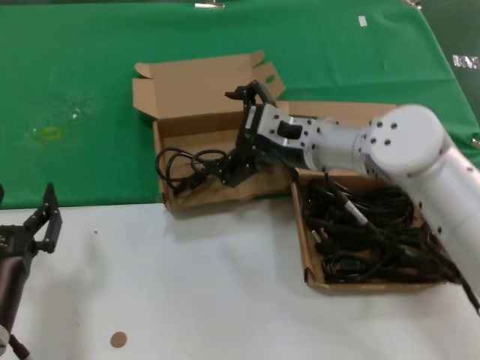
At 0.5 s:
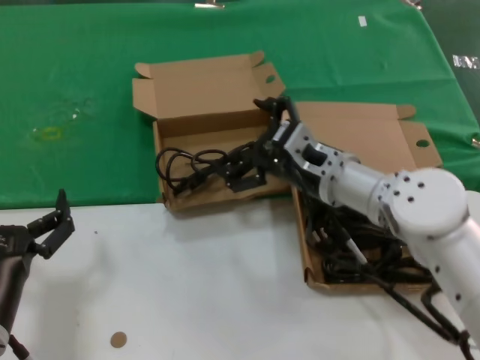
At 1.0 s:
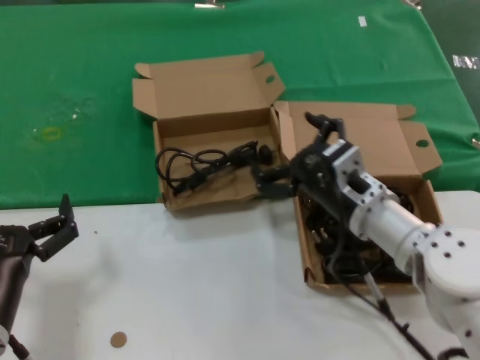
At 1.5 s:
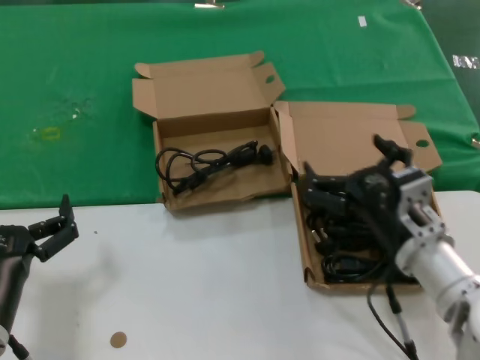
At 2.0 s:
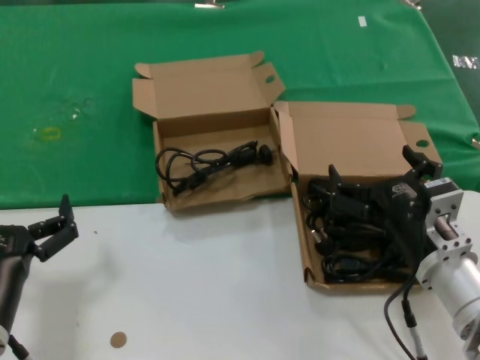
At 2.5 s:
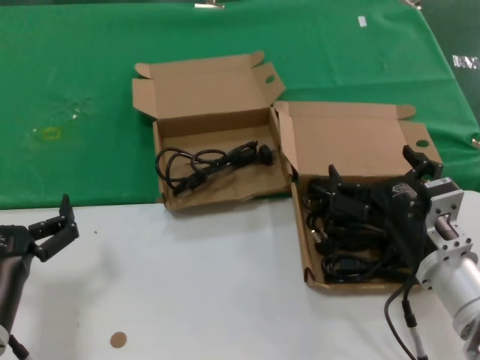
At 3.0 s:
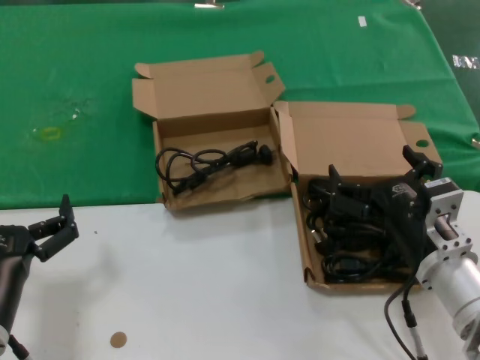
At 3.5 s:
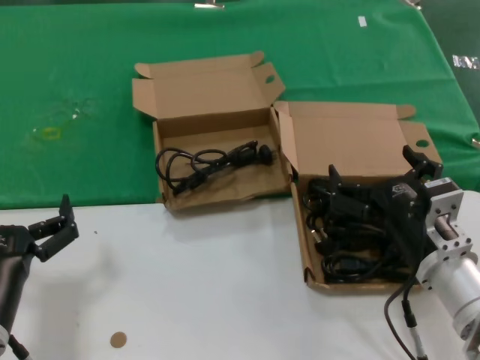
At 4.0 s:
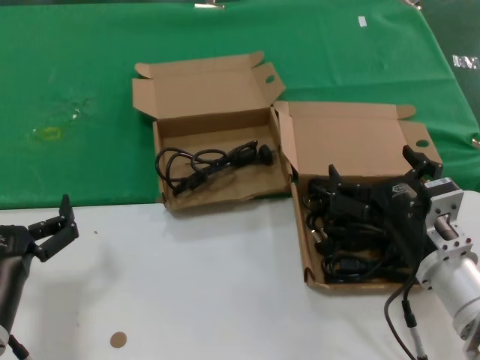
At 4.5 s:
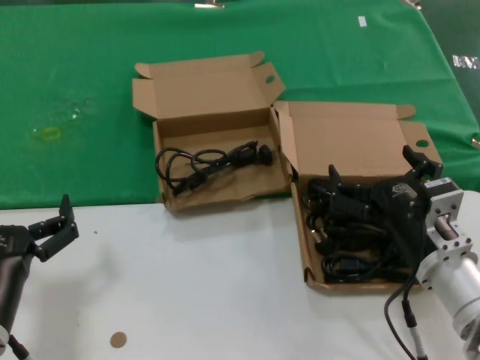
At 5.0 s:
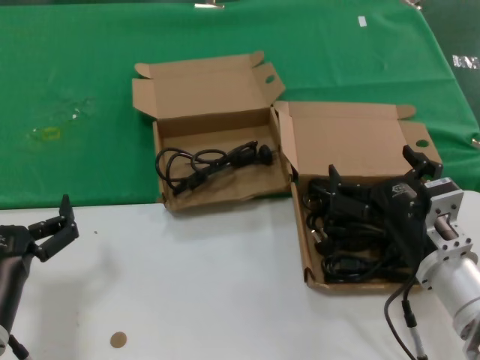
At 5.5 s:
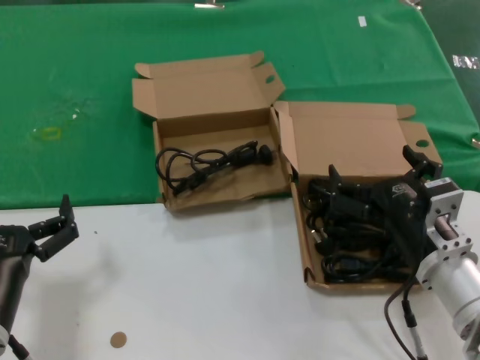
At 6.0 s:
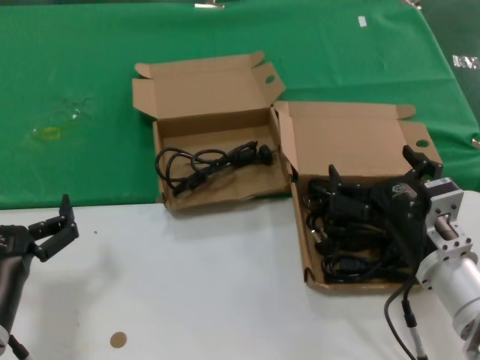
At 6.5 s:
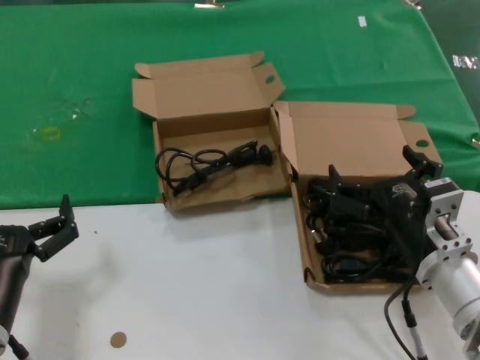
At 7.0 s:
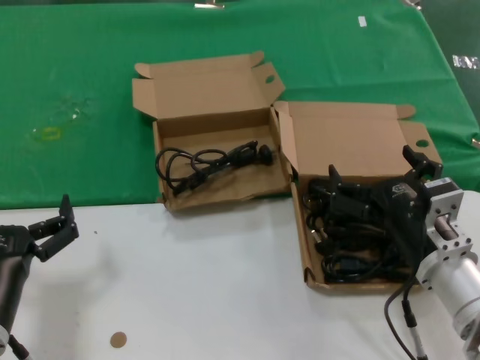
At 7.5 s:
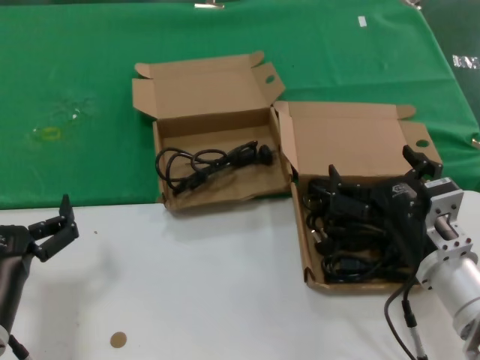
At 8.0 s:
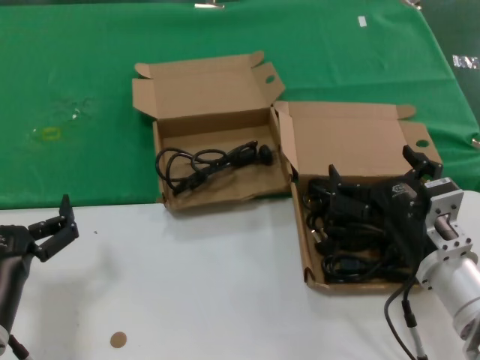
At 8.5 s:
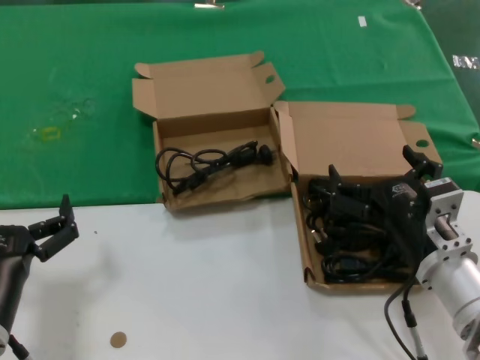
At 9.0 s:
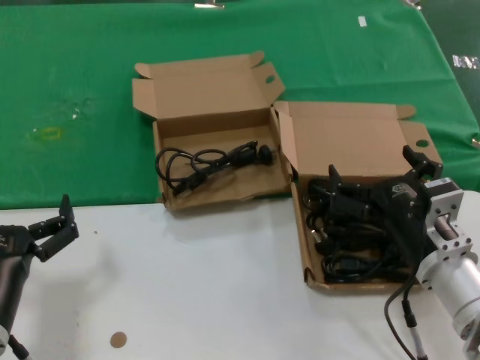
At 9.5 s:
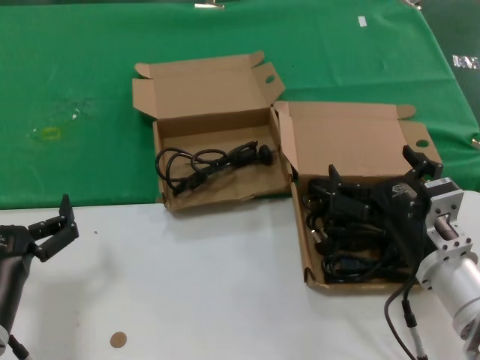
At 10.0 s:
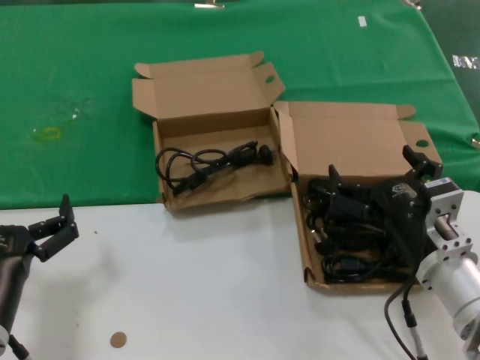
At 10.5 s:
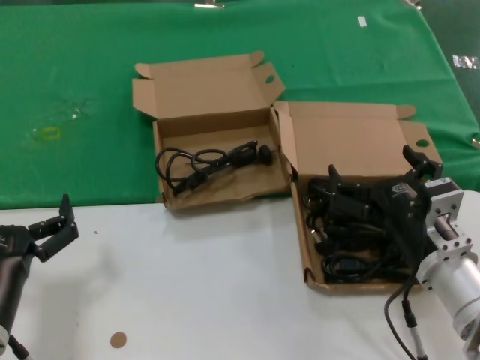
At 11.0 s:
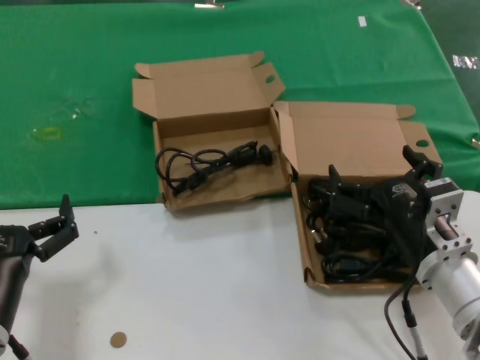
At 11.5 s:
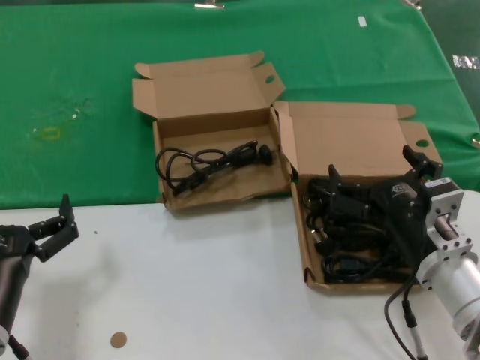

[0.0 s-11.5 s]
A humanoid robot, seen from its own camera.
Task of the whole recording: take the parts from the box containing them and put them into an empty box.
0.0 to 2.0 s: The right hand heads backward, downward and to the right, covering roughly 25 cm.
2.0 to 11.5 s: Both hands stay about where they are.

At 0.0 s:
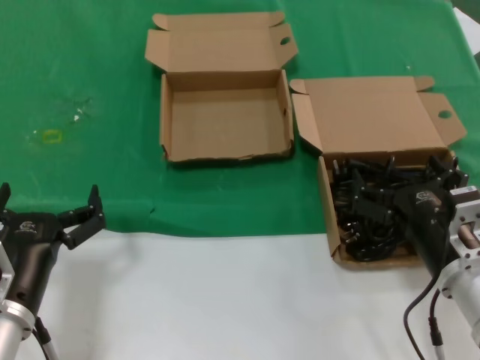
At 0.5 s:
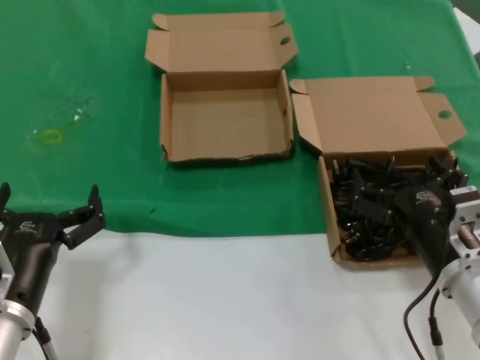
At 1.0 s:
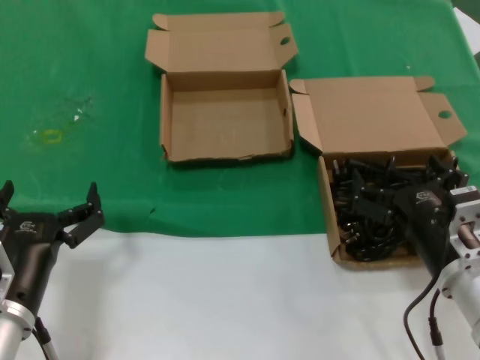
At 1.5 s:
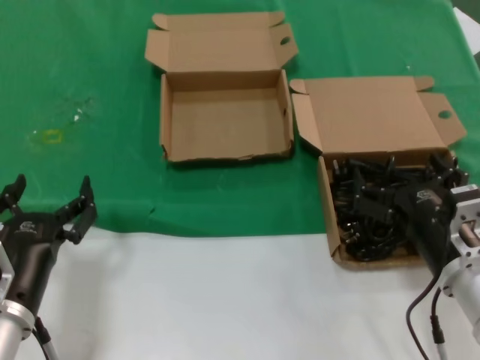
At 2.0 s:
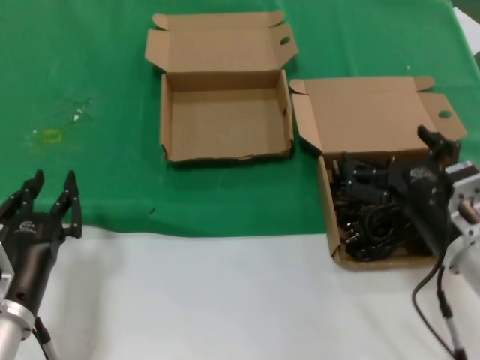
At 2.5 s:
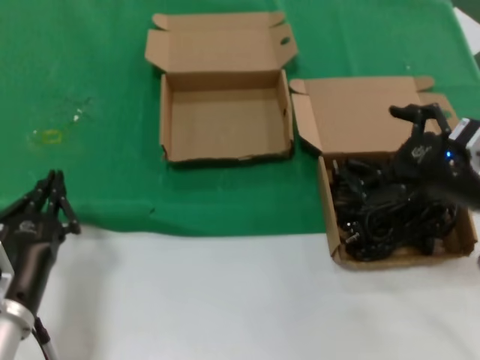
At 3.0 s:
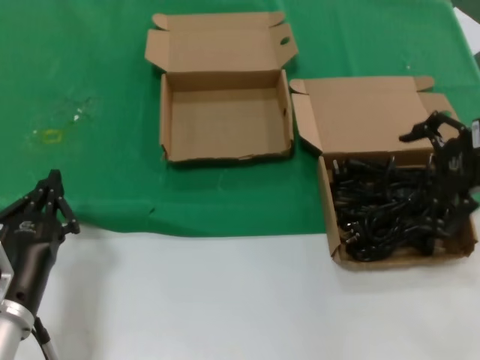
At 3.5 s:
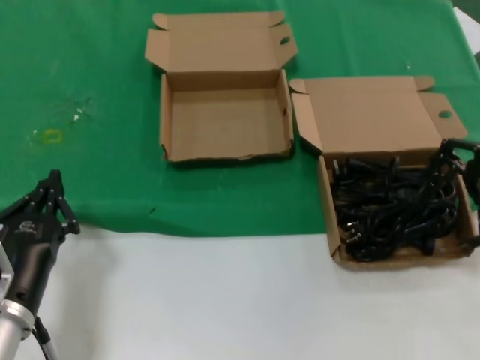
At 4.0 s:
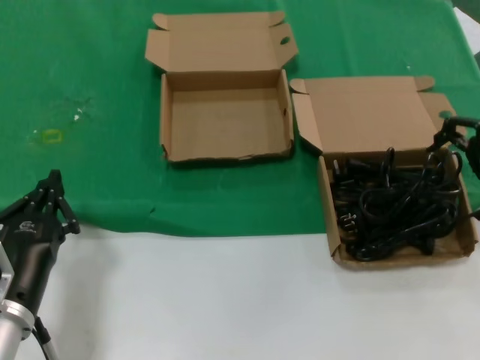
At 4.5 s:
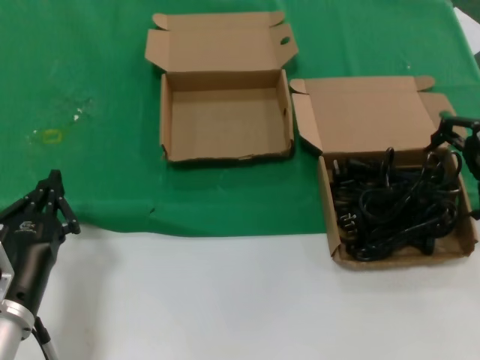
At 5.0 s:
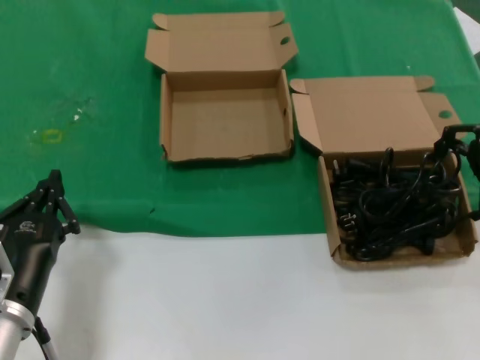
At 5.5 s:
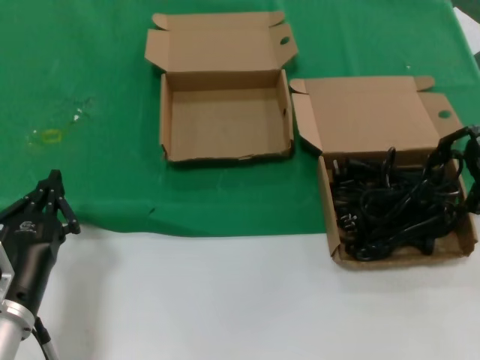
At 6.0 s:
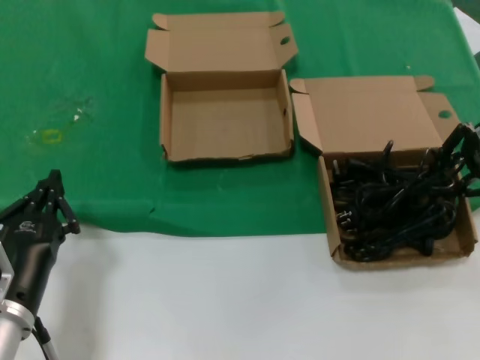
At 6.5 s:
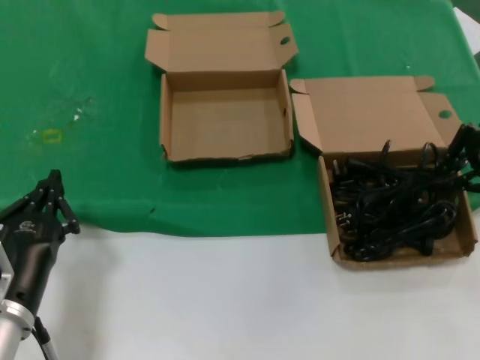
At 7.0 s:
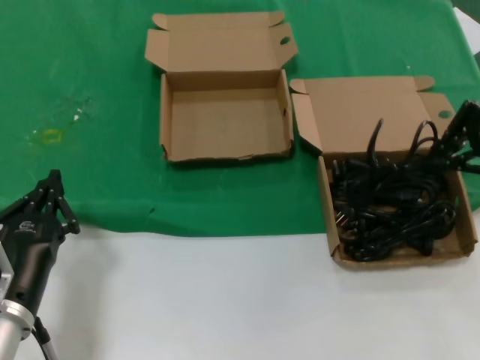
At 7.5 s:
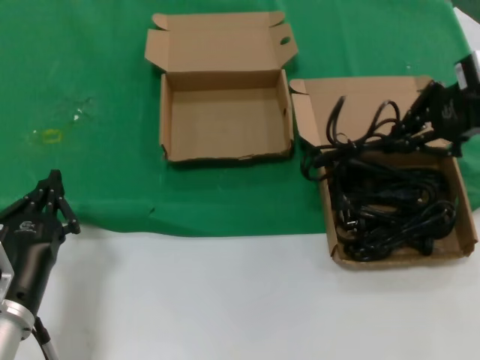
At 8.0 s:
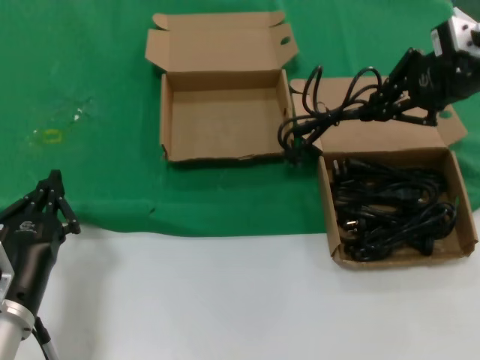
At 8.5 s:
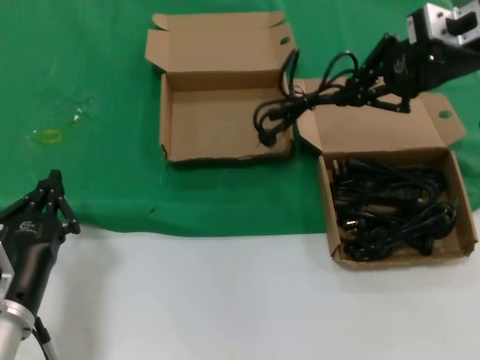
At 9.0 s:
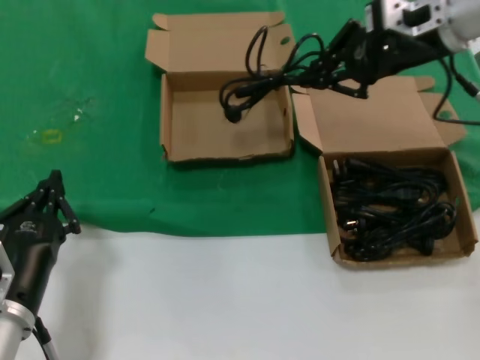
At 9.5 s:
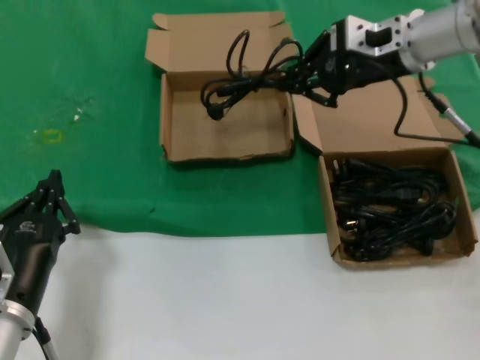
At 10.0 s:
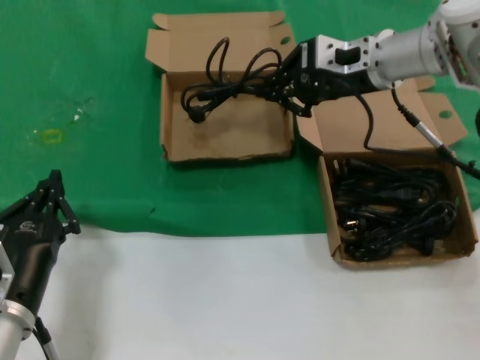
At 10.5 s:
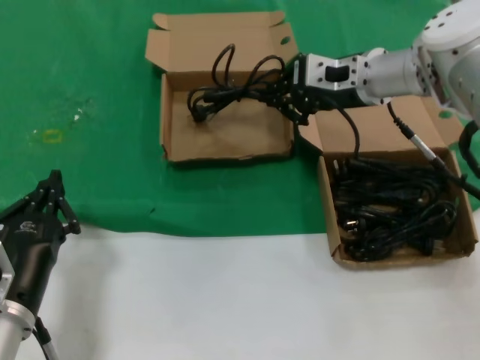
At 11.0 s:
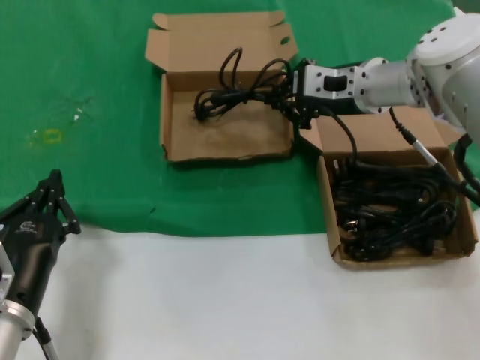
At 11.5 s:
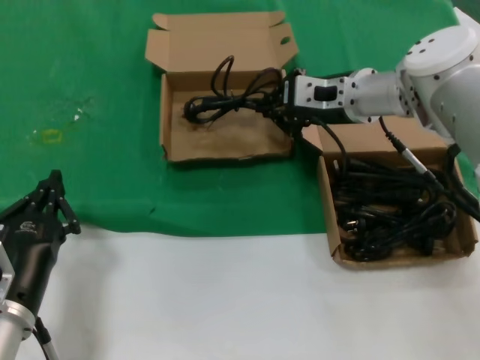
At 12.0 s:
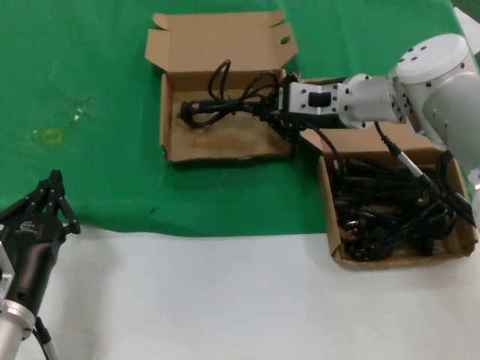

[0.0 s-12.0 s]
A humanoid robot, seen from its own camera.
Task of the whole recording: take the parts from the box containing them and put them into an empty box.
Step, 0.0 to 6.0 s: Grasp the data cable.
0.0 to 2.0 s: The hands stay close to where they were, moving slightly.
2.0 to 4.0 s: The right hand moves upward, forward and to the right, about 30 cm.
4.0 to 6.0 s: Neither hand changes place.
6.0 to 8.0 s: The right hand goes some 10 cm upward and to the left.
8.0 to 10.0 s: The right hand is displaced to the left, downward and forward by some 15 cm.
10.0 to 12.0 s: The right hand is displaced downward by some 5 cm.

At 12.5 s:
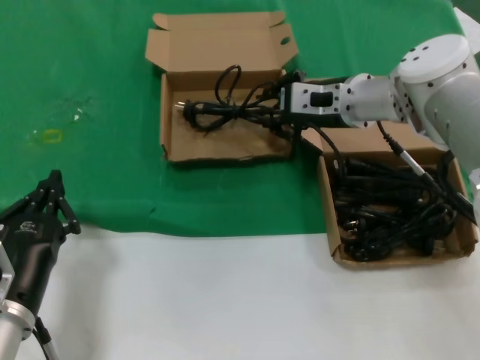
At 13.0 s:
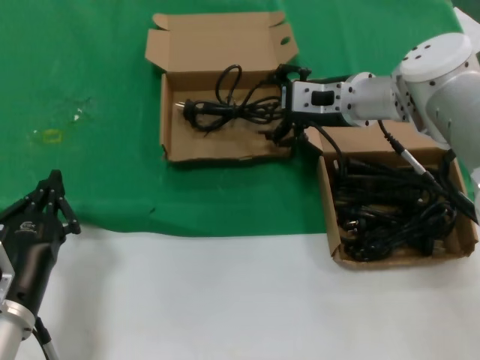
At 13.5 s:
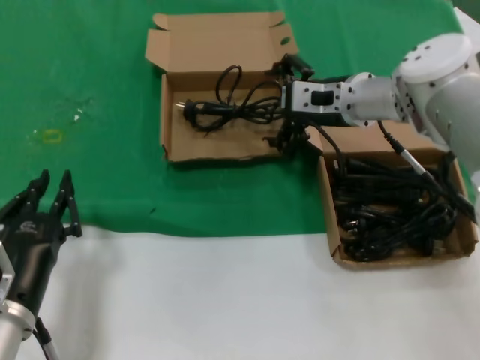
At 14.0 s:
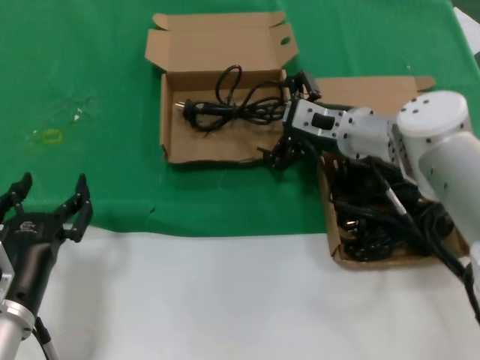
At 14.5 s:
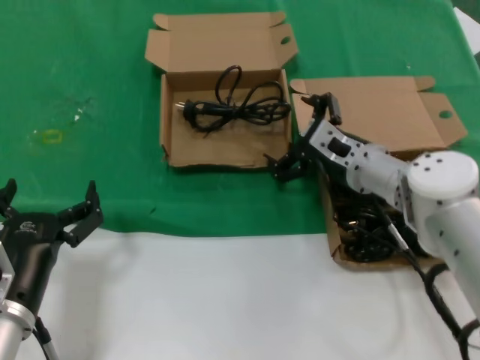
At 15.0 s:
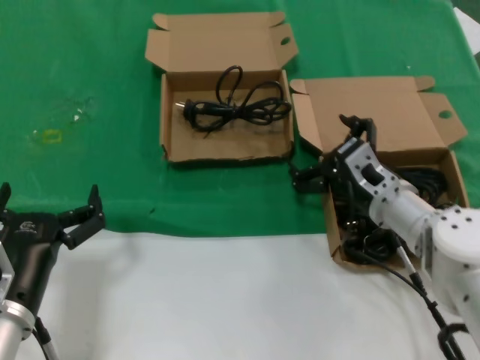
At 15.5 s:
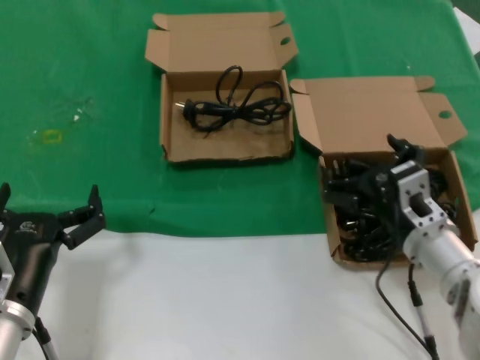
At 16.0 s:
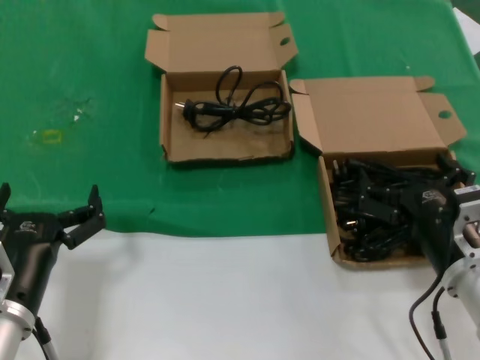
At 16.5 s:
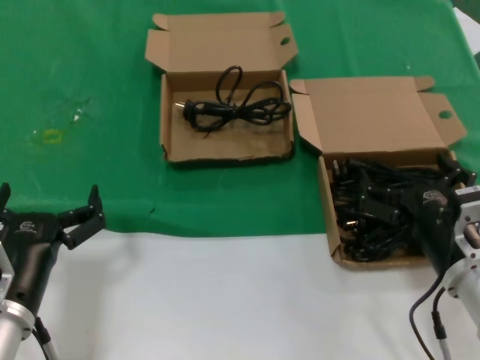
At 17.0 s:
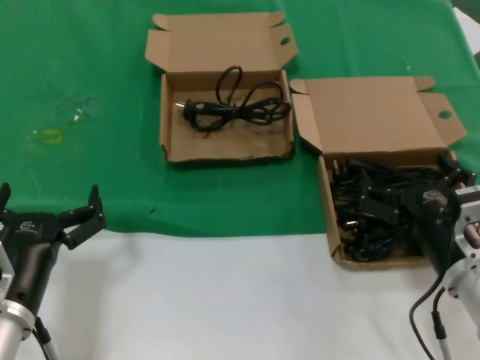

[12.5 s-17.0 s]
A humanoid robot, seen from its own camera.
Task of the whole recording: take the parts from the box containing them and put them into an empty box.
12.5 to 14.5 s: The right hand goes some 10 cm downward and backward.
14.5 to 17.0 s: The right hand shifts roughly 20 cm backward.
